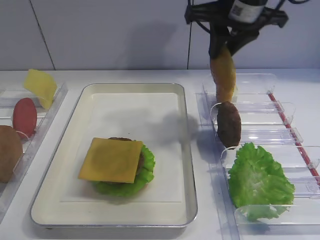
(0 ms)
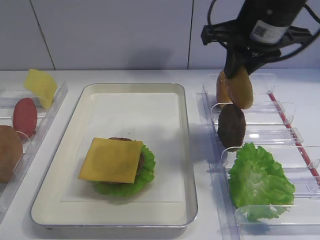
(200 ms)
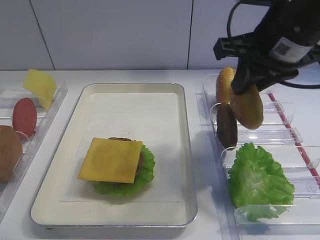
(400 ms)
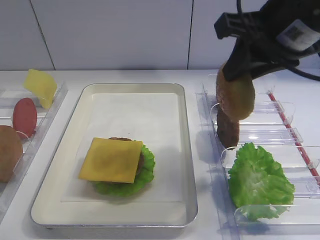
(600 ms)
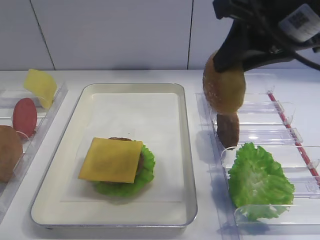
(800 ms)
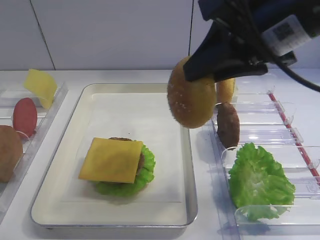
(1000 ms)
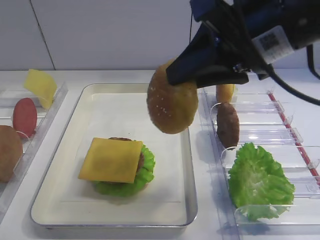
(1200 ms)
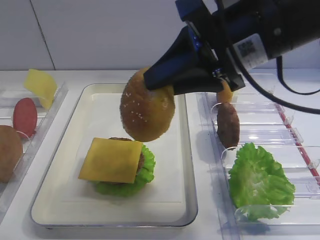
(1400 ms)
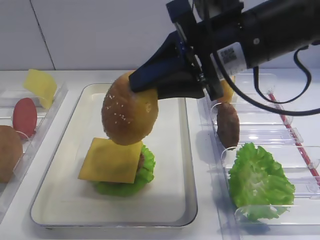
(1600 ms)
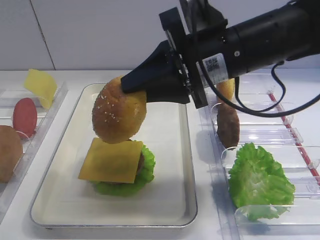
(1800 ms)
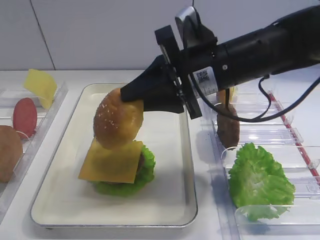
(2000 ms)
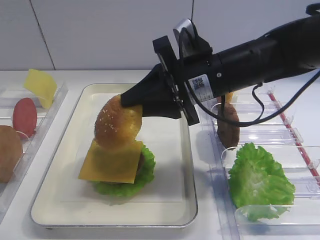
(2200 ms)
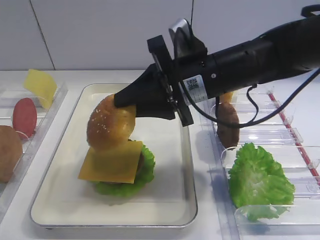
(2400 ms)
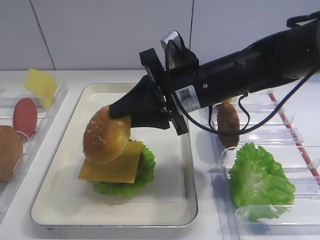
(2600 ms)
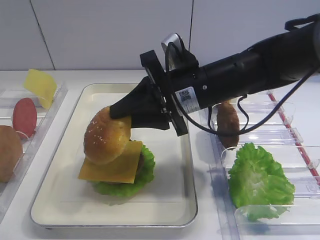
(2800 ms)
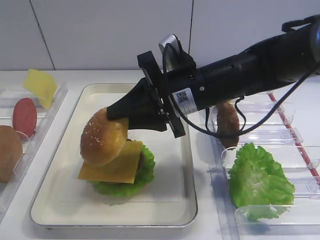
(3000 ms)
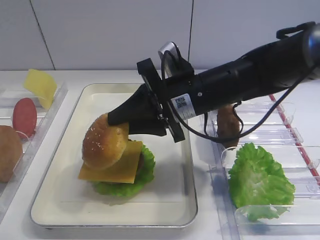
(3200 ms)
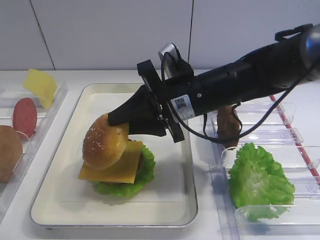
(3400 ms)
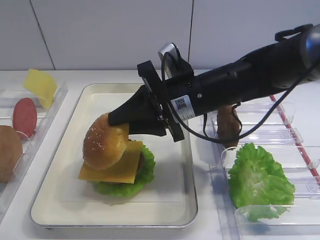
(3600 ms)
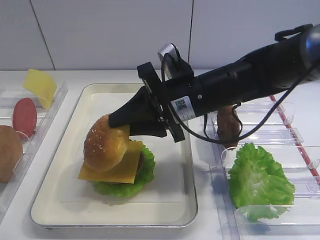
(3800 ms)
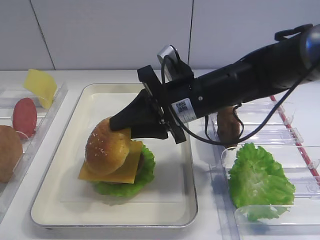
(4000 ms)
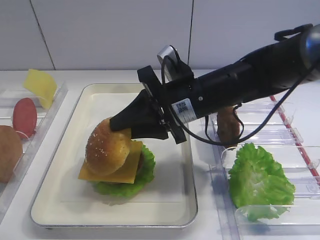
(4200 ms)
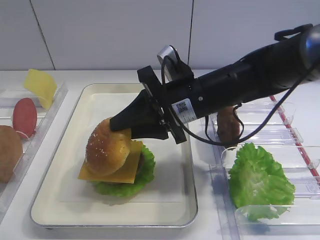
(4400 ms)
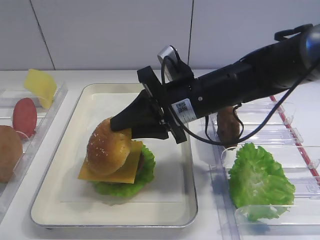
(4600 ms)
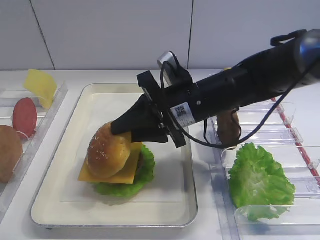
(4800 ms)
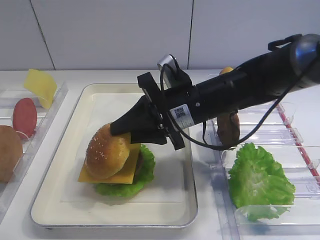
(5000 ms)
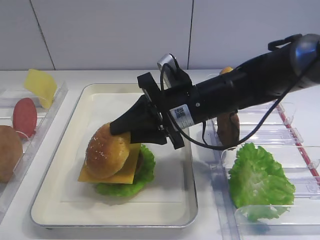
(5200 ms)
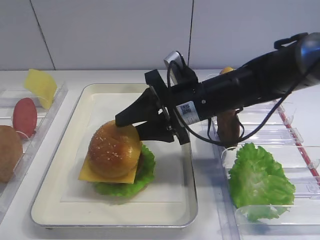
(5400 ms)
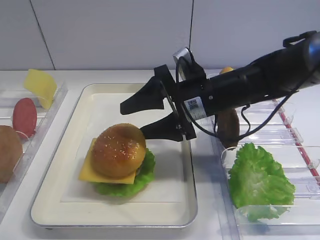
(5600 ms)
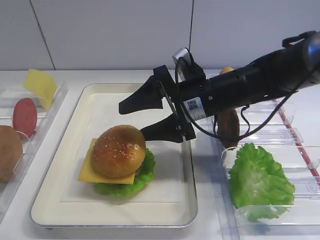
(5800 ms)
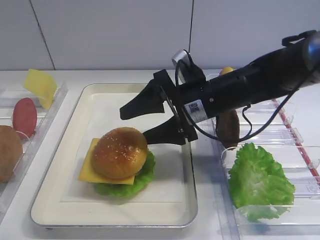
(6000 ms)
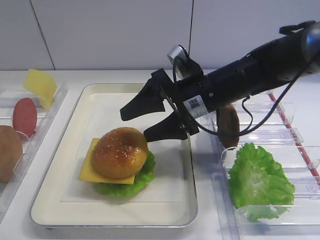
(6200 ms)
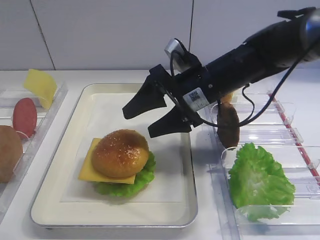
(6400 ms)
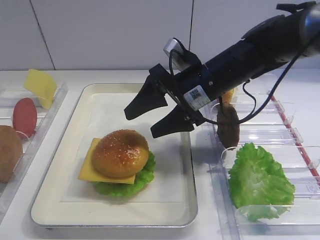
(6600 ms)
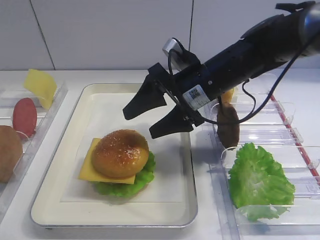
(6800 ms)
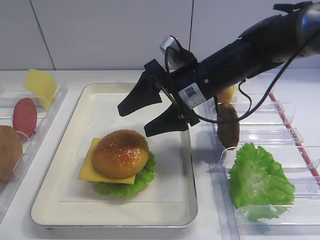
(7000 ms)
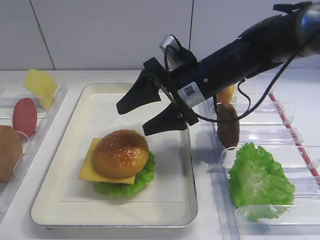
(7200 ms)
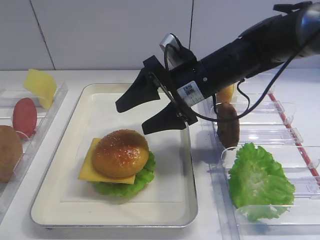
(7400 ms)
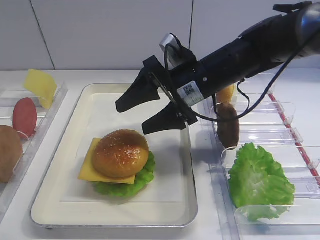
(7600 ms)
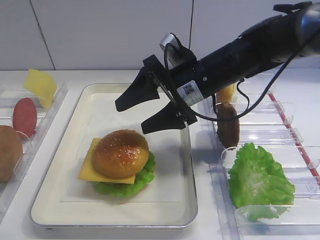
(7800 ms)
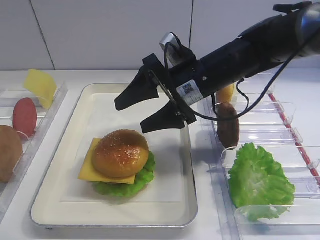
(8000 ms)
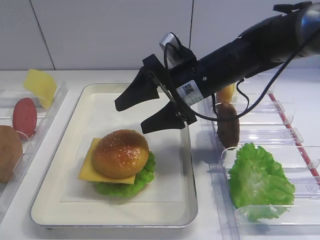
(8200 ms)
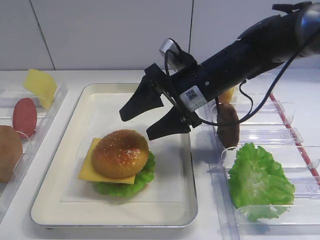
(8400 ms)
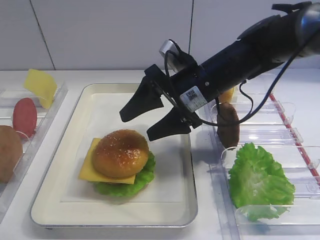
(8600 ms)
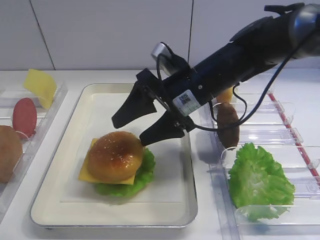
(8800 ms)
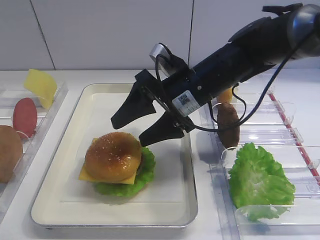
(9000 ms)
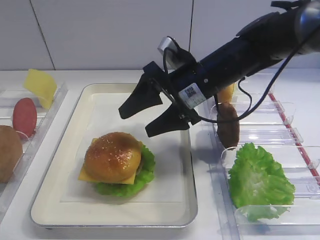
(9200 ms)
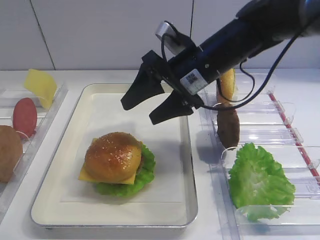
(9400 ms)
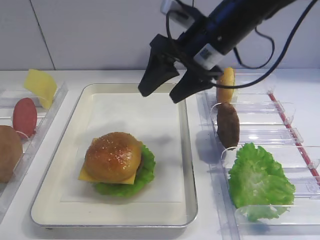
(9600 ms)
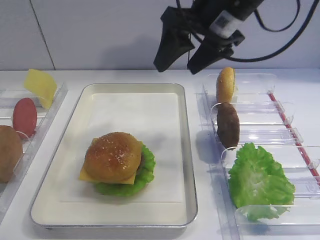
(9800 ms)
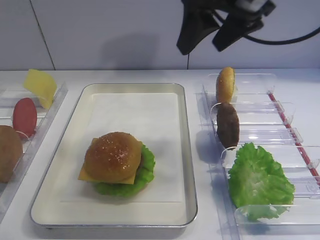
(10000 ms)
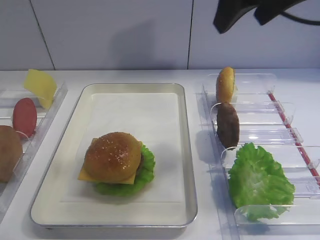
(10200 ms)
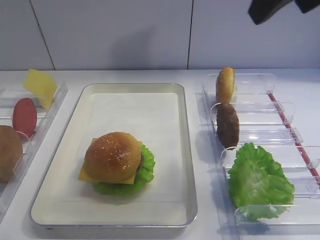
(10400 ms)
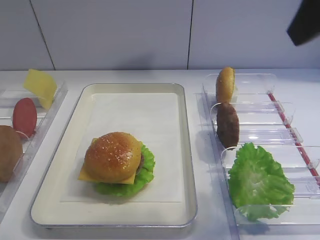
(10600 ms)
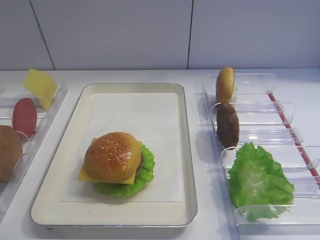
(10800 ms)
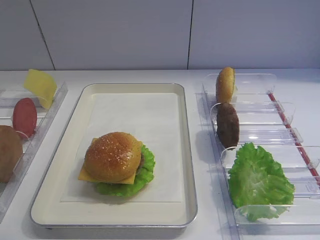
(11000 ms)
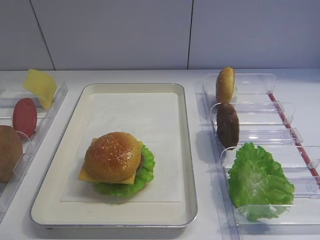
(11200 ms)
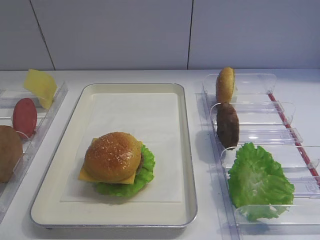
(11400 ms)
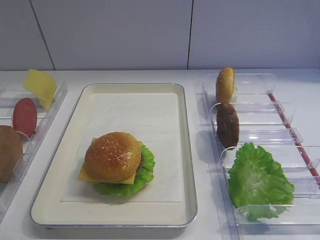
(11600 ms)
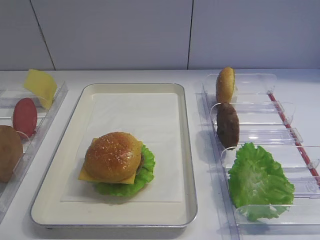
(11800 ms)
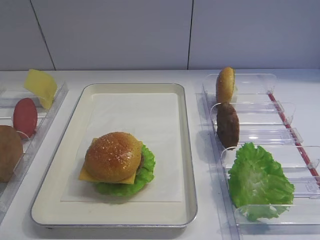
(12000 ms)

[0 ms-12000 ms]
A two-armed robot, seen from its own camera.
Step, 0 ms to 8200 ms: Place the hamburger lid on the cheese slice with the right gripper.
0 ms to 1600 ms: The right gripper goes about 10 cm backward.
1600 ms to 3000 ms: The right gripper travels downward by approximately 10 cm.
3000 ms to 4400 ms: There are only small adjustments of the grippers.
4400 ms to 6000 ms: The right gripper opens its fingers.
6000 ms to 9000 ms: There are only small adjustments of the grippers.
9000 ms to 10400 ms: The right gripper is displaced upward and to the right by some 25 cm.
10400 ms to 12000 ms: The right gripper travels backward and downward by about 30 cm.

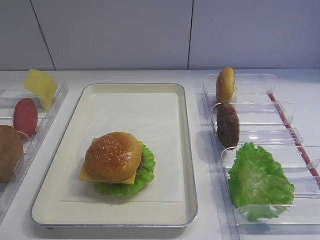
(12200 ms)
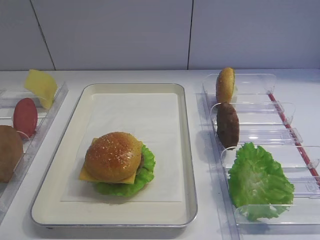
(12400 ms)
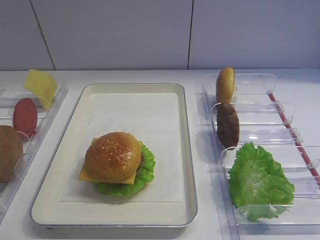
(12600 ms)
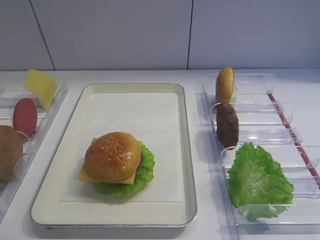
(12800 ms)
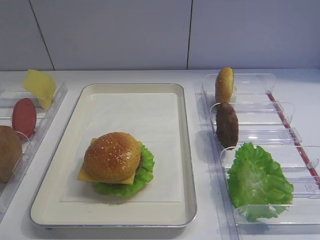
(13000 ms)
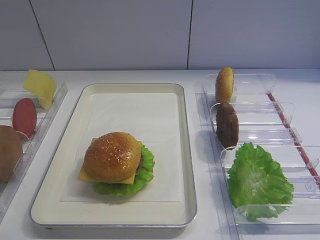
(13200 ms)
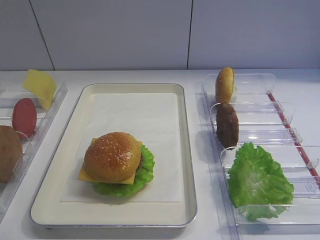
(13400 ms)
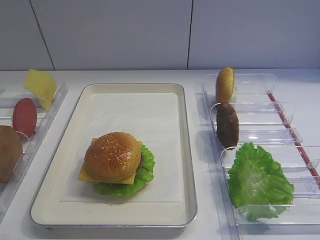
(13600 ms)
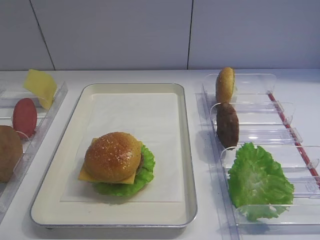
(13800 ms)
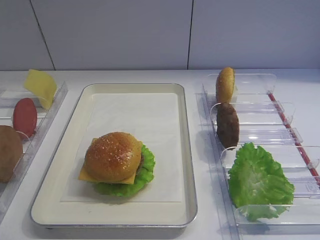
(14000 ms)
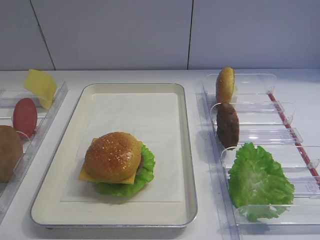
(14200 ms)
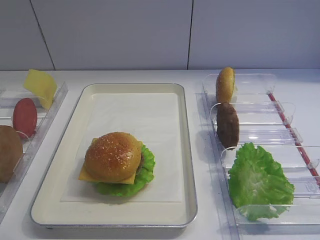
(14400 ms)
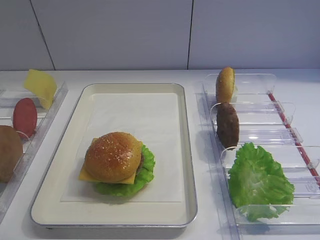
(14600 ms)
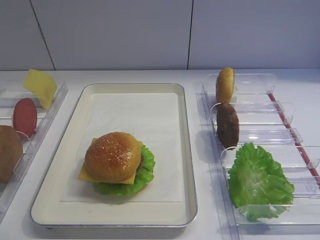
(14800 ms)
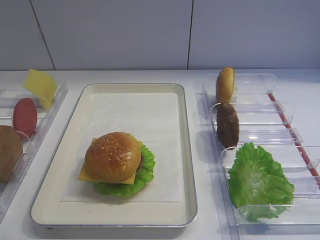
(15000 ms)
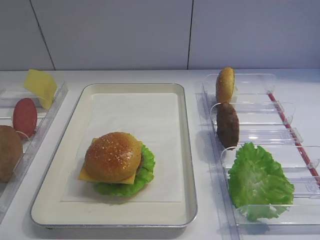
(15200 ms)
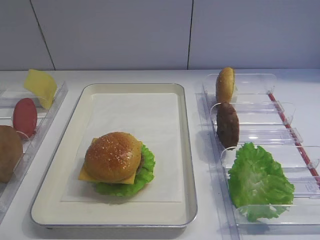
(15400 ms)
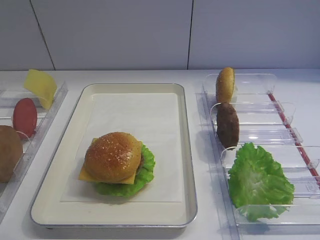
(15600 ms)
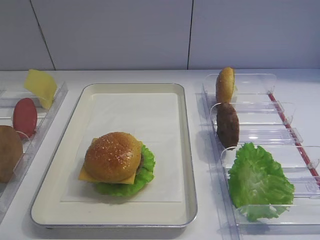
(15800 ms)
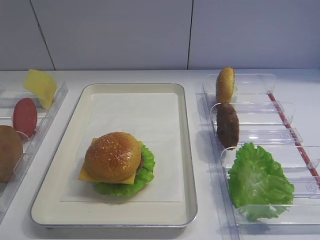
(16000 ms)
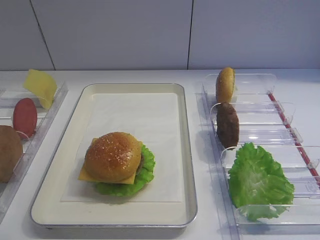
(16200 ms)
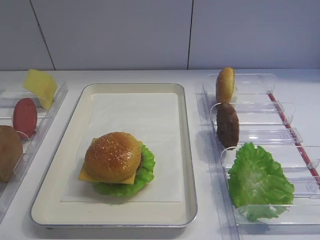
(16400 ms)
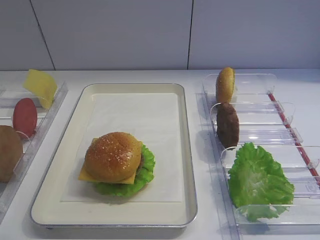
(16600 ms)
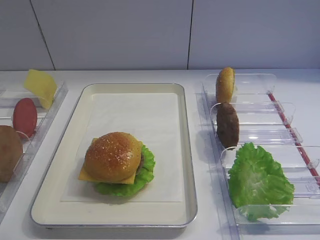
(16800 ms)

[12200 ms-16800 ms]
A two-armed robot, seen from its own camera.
13800 ms to 16800 ms: Both grippers stay about where they are.

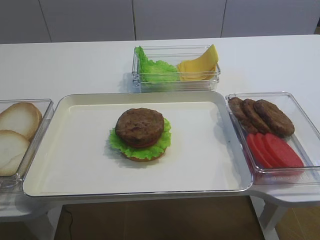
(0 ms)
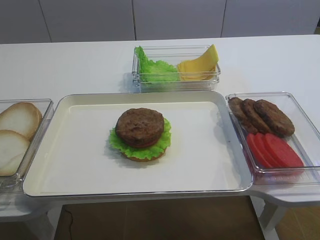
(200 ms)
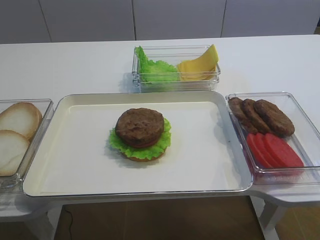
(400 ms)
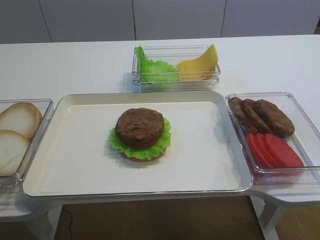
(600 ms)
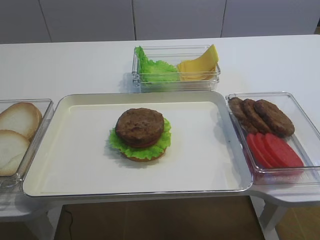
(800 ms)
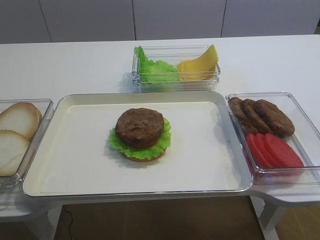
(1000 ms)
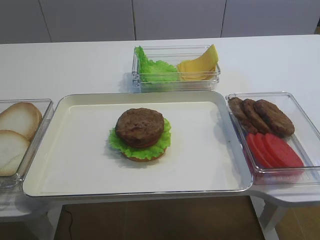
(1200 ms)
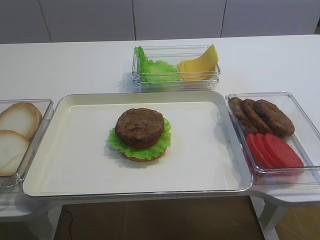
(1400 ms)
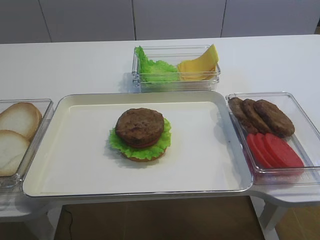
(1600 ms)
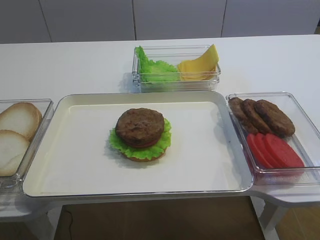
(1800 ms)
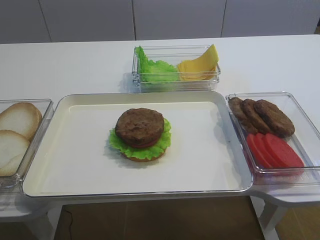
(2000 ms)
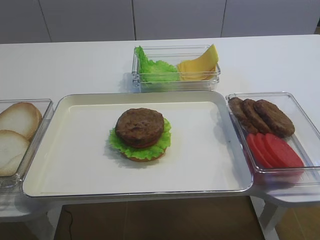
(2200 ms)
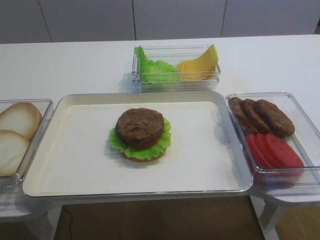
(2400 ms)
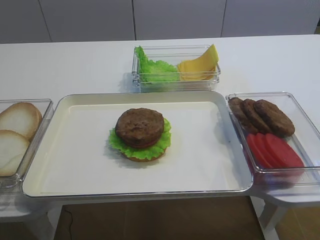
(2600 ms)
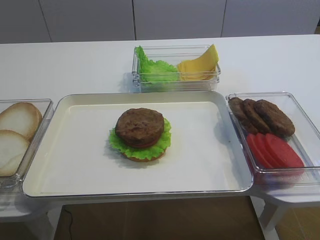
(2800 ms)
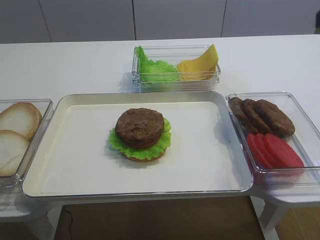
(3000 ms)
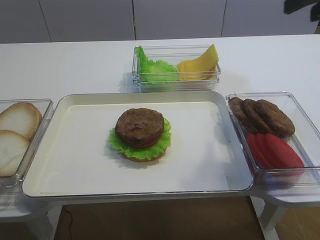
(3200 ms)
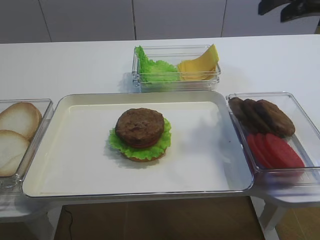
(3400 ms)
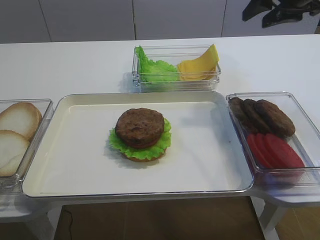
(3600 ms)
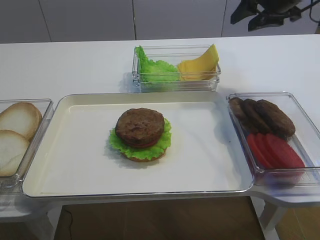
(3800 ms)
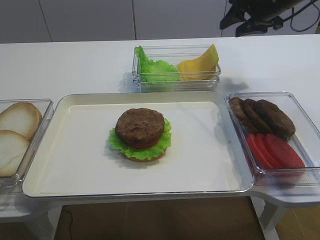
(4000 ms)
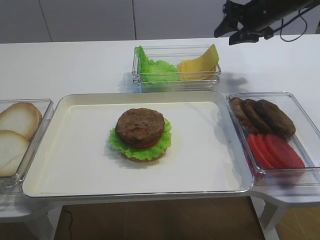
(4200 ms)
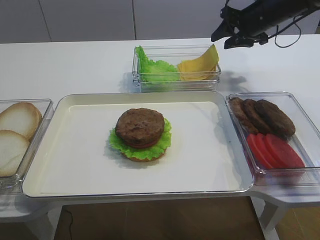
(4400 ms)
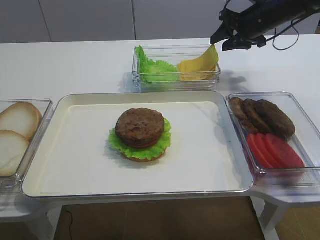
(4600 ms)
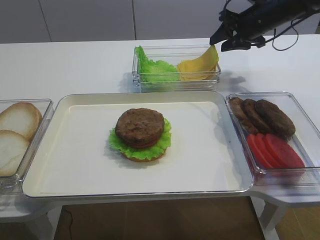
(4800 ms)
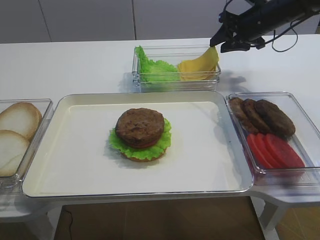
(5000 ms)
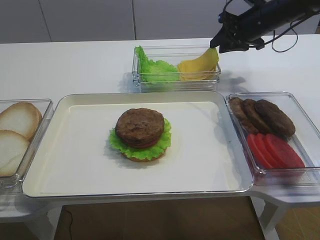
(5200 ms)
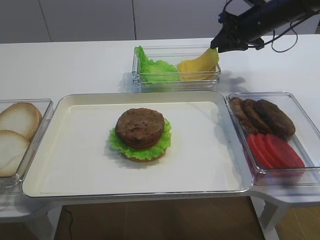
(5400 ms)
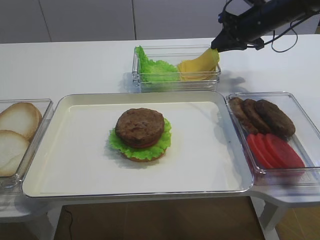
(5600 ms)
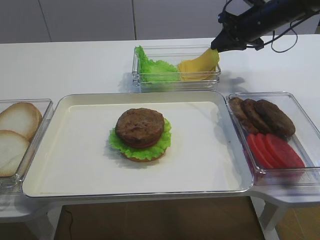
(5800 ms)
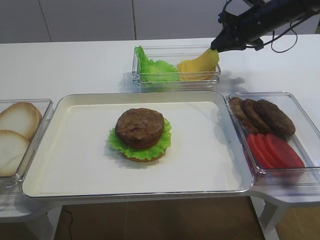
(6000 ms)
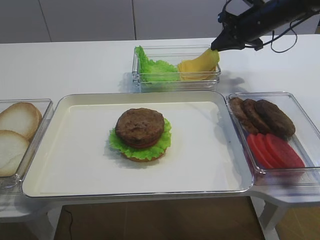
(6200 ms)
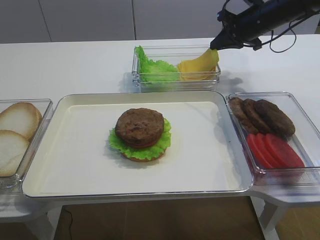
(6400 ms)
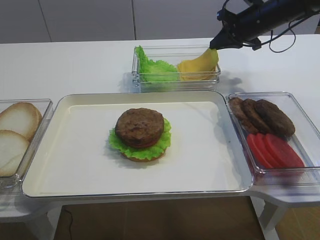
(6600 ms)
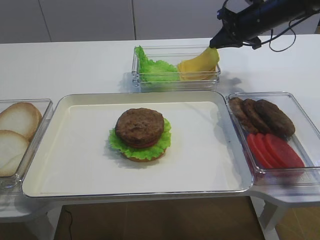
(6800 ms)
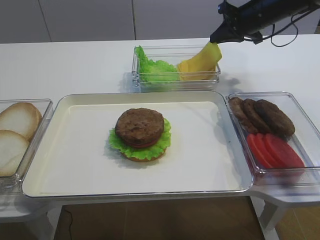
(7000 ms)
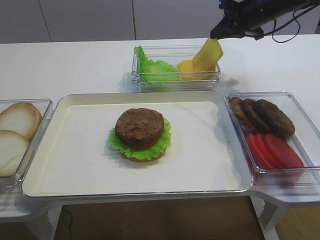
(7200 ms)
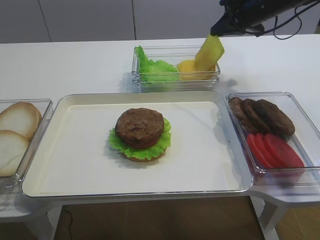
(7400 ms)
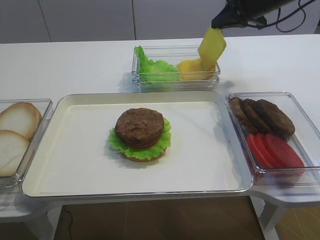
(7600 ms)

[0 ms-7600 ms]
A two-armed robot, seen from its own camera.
1600 ms to 3000 ms: The right gripper heads forward and upward, covering some 25 cm.
3000 ms to 4600 ms: The right gripper heads forward and downward, covering roughly 35 cm.
4600 ms to 6000 ms: The right gripper closes its fingers.
6000 ms to 7600 ms: The right gripper moves upward, some 5 cm.
